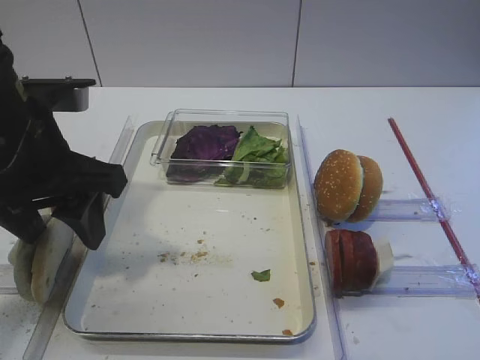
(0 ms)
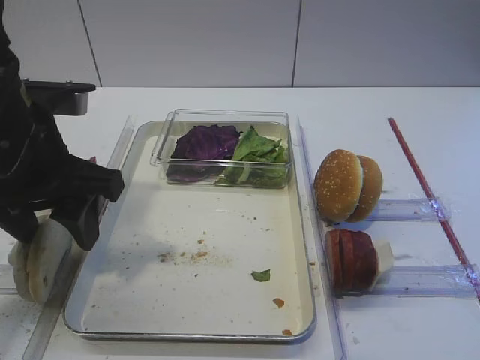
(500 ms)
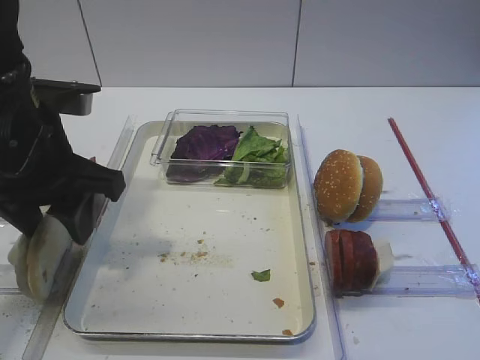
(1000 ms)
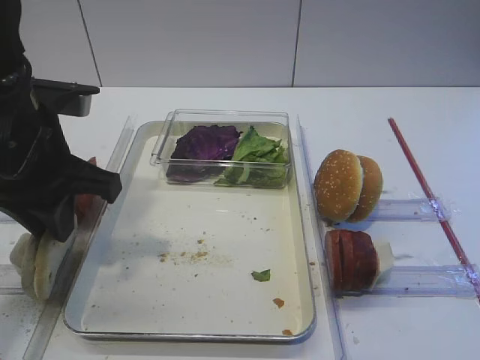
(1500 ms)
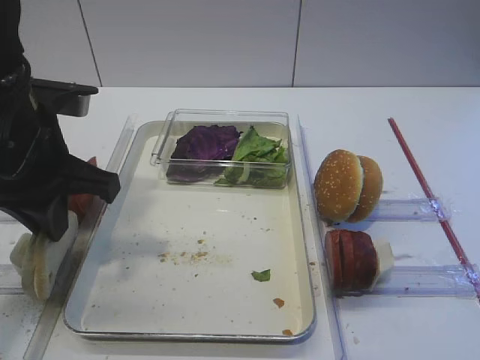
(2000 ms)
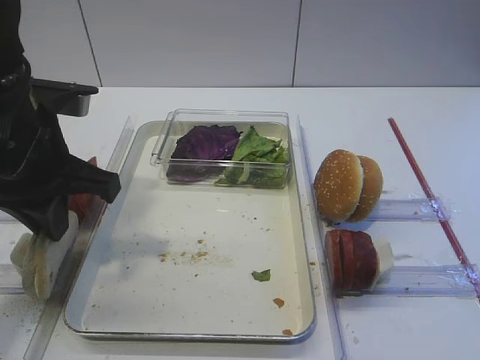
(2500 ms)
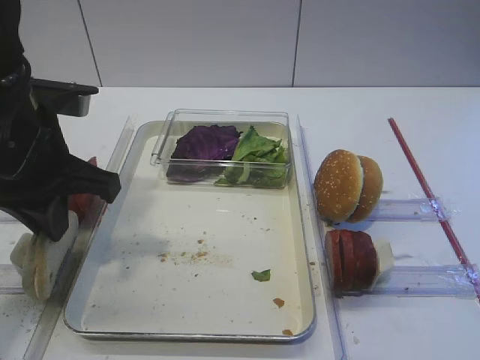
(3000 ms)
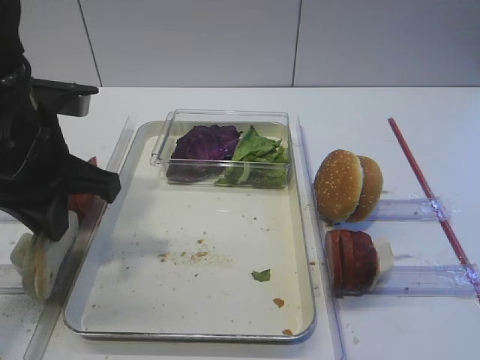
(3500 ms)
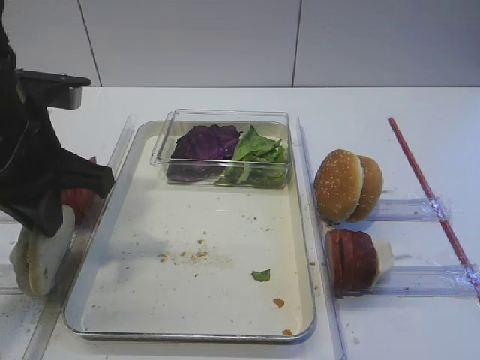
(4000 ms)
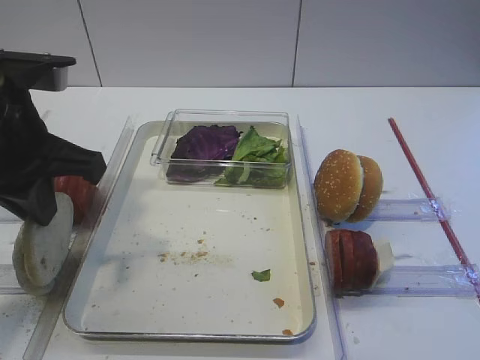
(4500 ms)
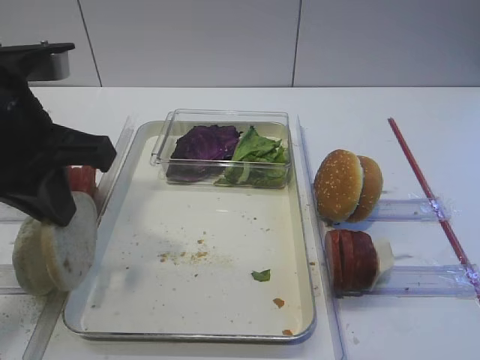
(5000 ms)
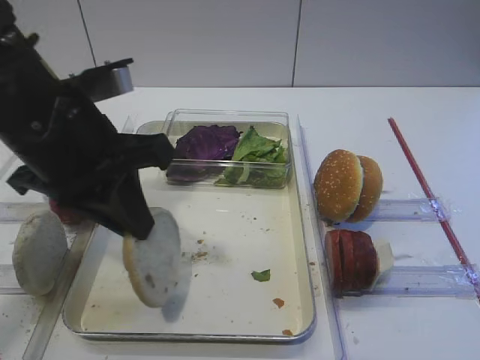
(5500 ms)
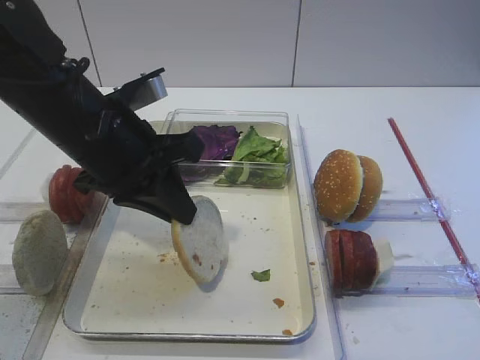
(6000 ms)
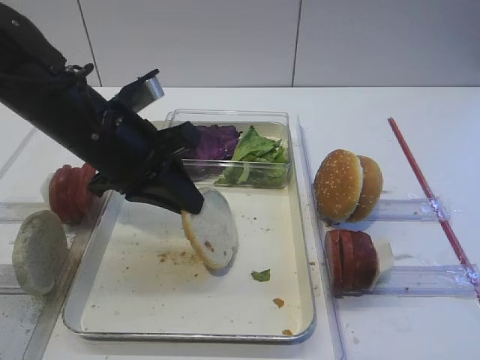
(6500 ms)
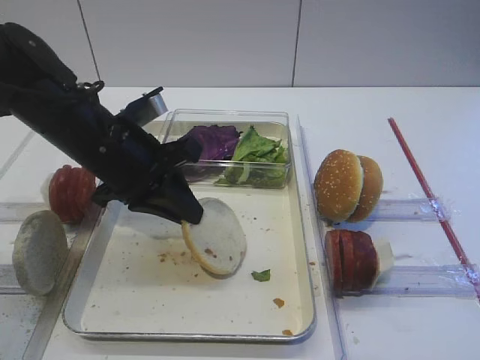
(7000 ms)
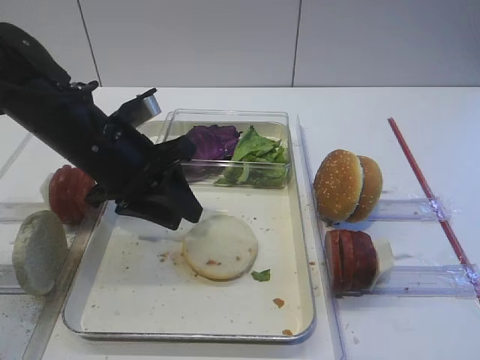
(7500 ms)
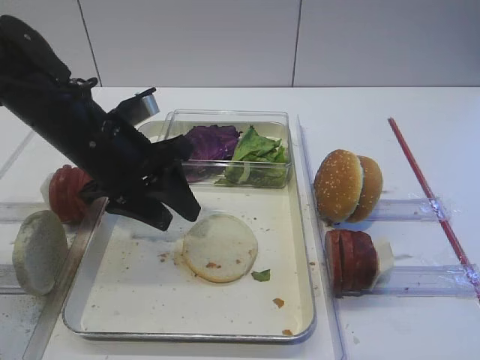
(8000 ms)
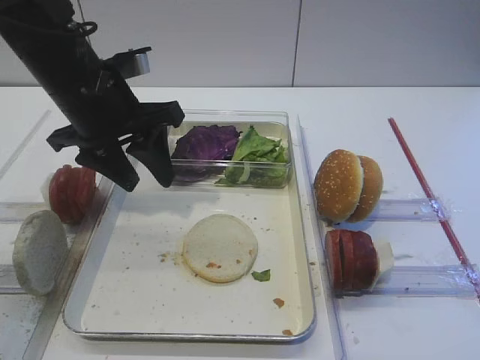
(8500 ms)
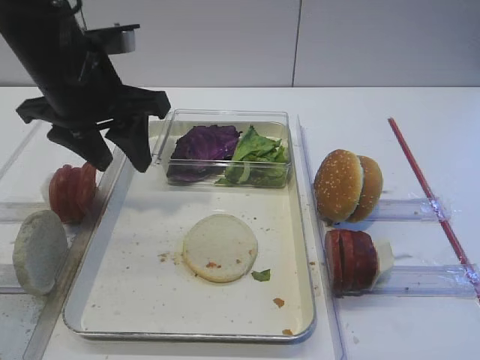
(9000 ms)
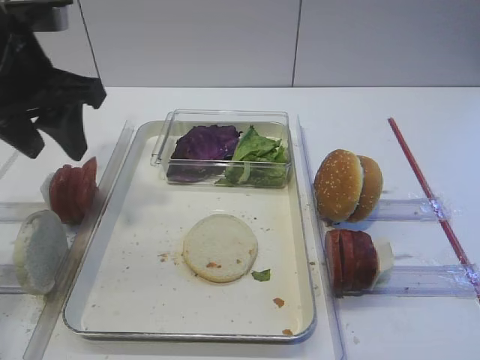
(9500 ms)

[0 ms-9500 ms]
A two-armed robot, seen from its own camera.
Step, 0 ms to 4500 ms: Pick up the bread slice with the left gripper.
Step, 5500 ms to 7500 ms: Place the bread slice on the tray with the left gripper.
0 ms to 2000 ms: The left gripper closes.
2000 ms to 4000 ms: Neither gripper changes place.
5500 ms to 7500 ms: The left gripper goes about 10 cm downward and forward.
7500 ms to 9500 ms: The left gripper goes some 10 cm upward and to the left.

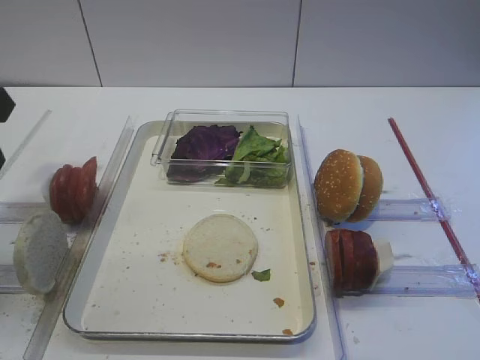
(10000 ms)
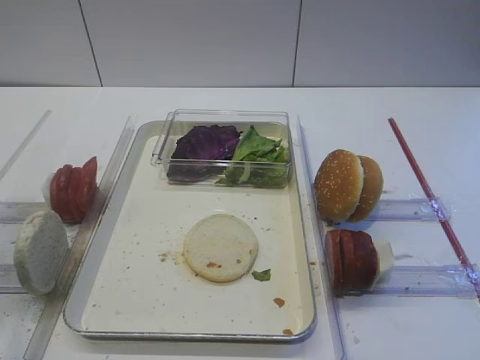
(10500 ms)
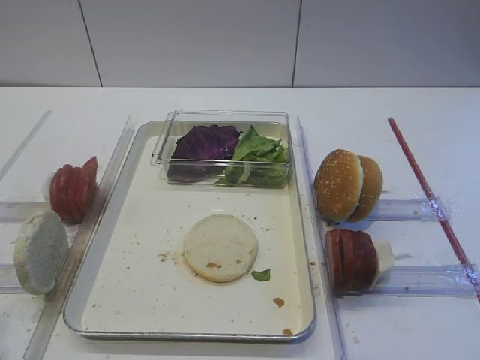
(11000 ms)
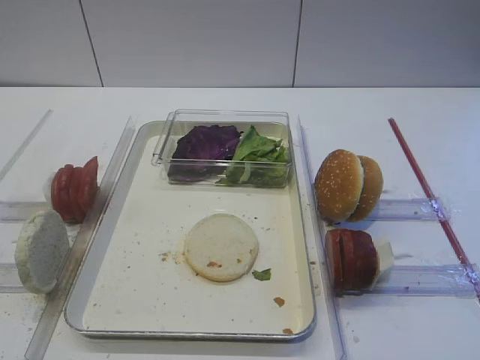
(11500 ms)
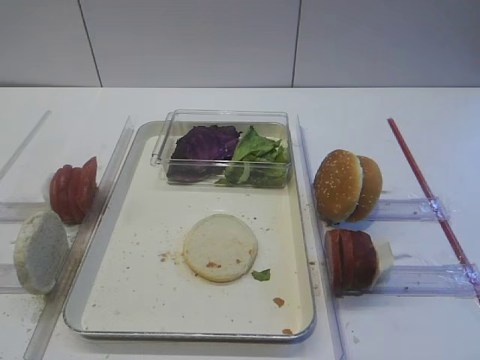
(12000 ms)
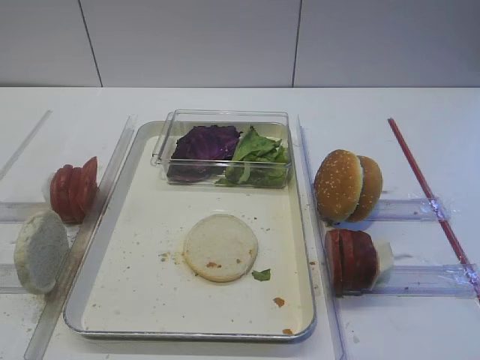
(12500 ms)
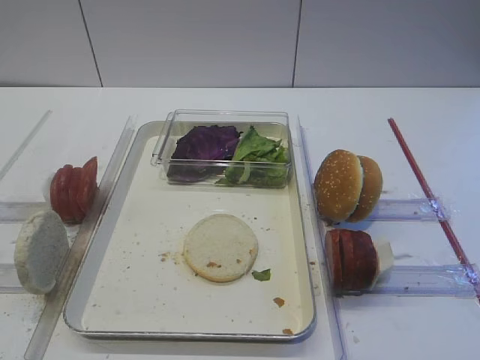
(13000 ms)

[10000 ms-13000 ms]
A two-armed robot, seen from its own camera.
10000 ms to 11500 ms: The left gripper heads backward, covering some 25 cm.

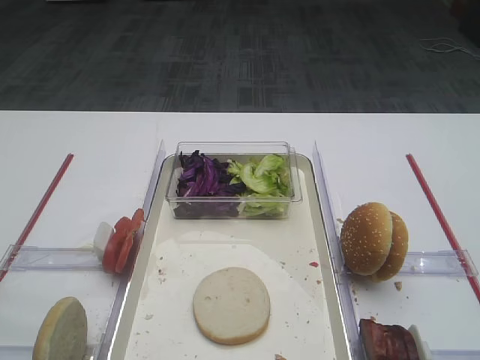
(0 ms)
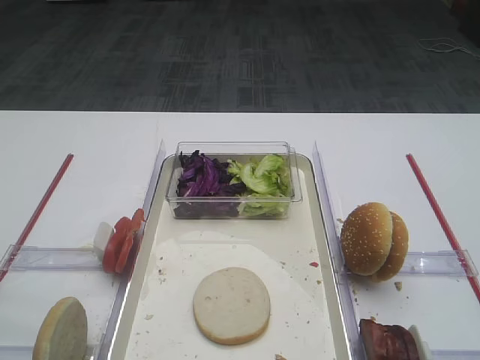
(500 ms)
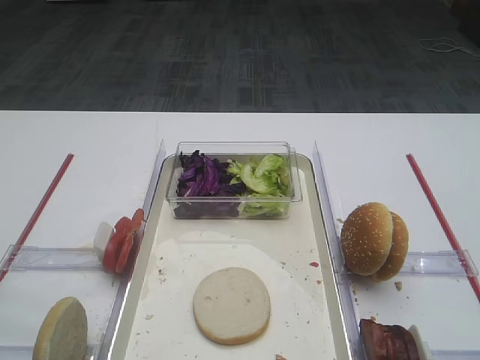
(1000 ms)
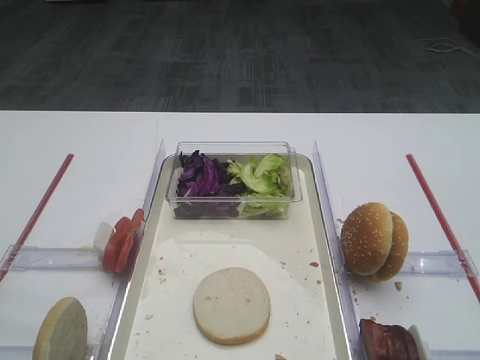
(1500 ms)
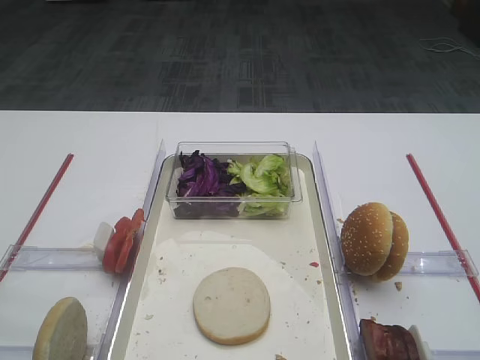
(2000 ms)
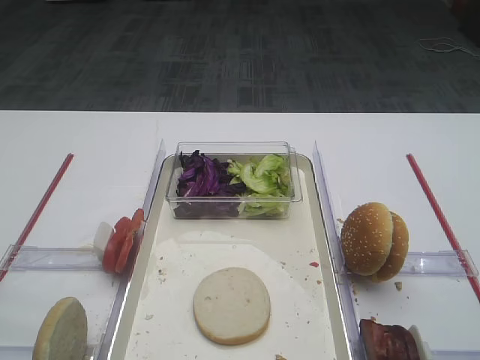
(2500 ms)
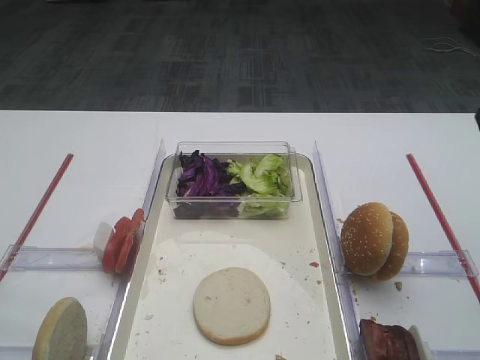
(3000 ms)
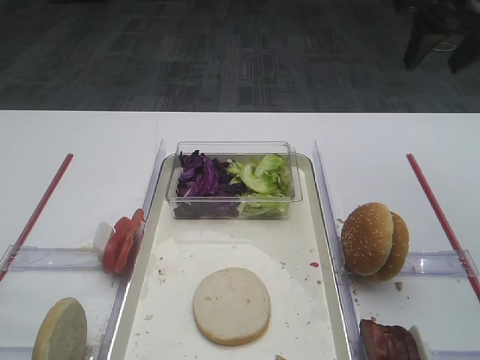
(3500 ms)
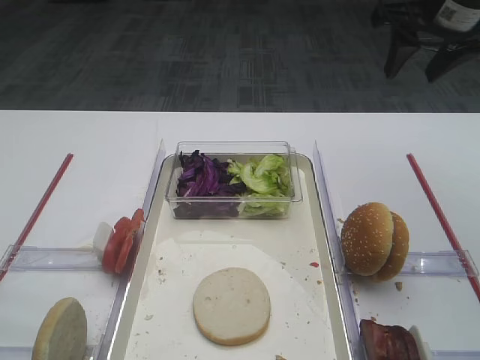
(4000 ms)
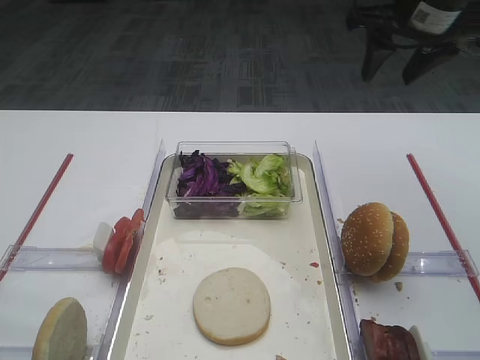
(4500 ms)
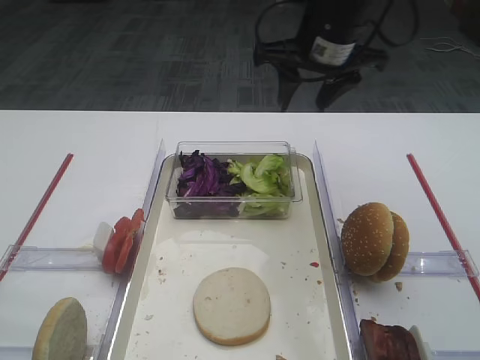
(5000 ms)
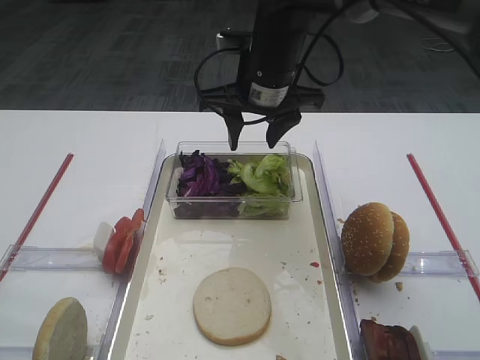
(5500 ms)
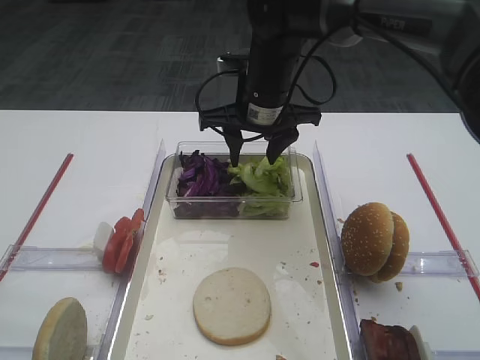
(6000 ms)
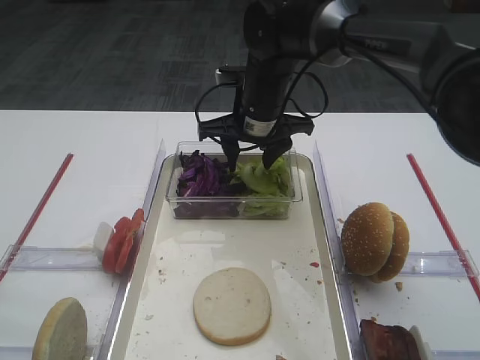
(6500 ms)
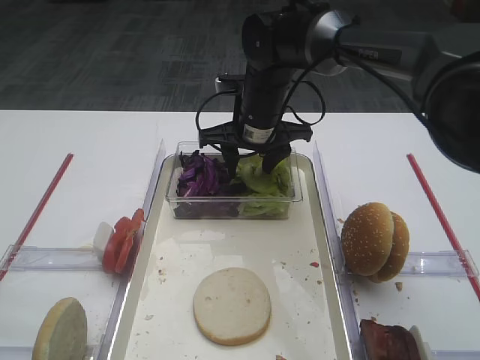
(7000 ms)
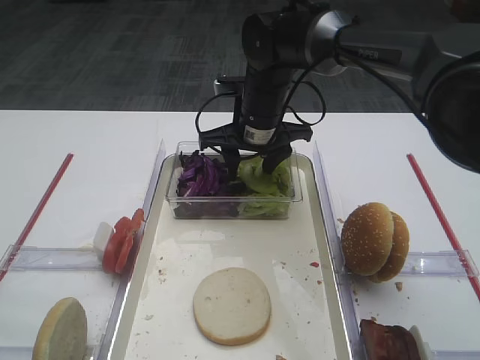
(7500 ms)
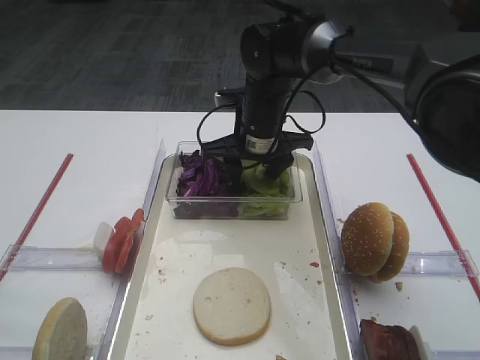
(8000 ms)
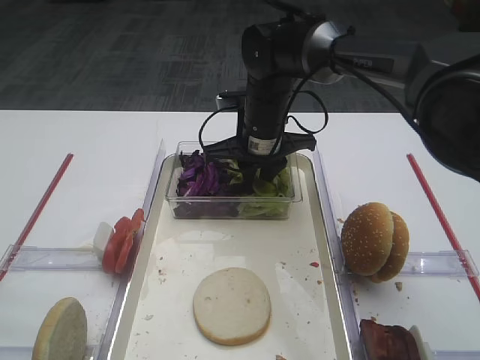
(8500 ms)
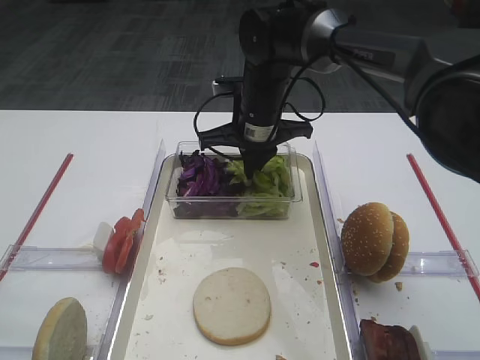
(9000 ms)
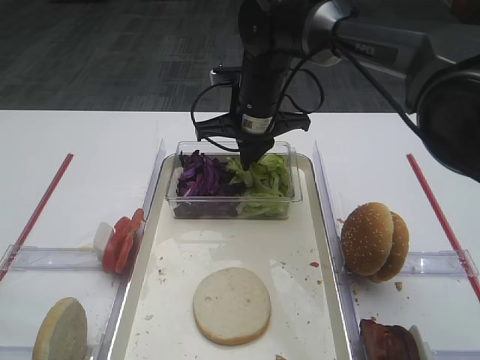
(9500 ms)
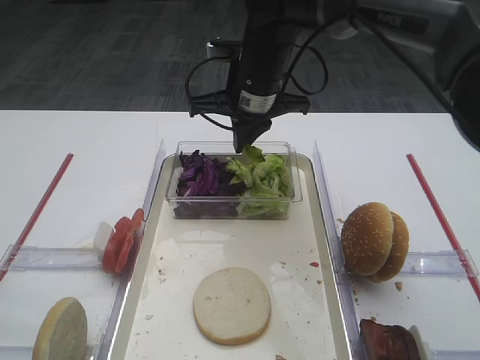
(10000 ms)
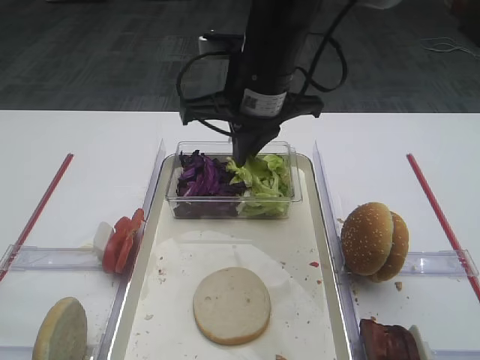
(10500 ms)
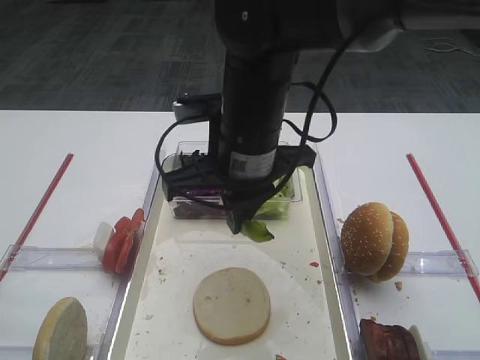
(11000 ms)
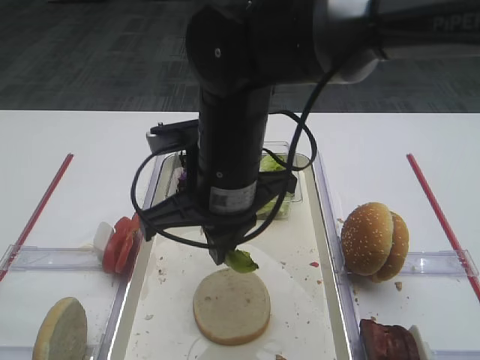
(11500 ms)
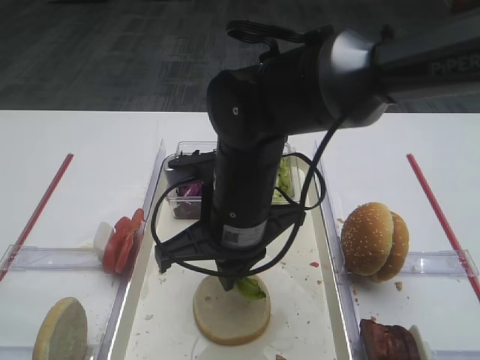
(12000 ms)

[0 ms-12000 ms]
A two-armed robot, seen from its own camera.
Step, 0 ms to 10000 ms: Pick up the lettuce leaf with the right gripper.
2000 ms to 4000 ms: The right gripper heads forward, covering approximately 40 cm.
4000 ms to 6000 ms: The right gripper shifts some 25 cm to the left and downward.
6000 ms to 8000 ms: The right gripper is displaced downward by some 5 cm.
8000 ms to 10000 ms: The right gripper heads upward, covering approximately 5 cm, and closes.
10000 ms to 12000 ms: The right gripper shifts roughly 15 cm backward.

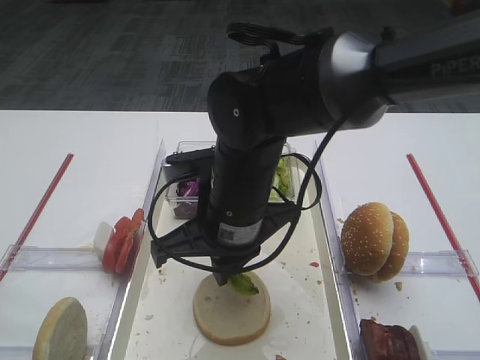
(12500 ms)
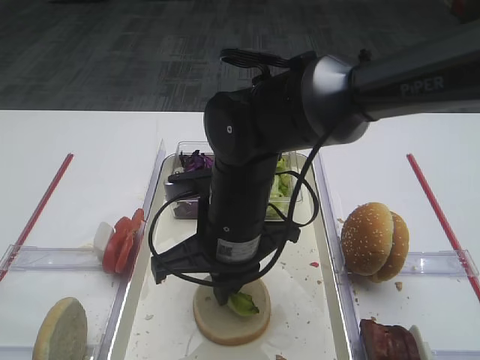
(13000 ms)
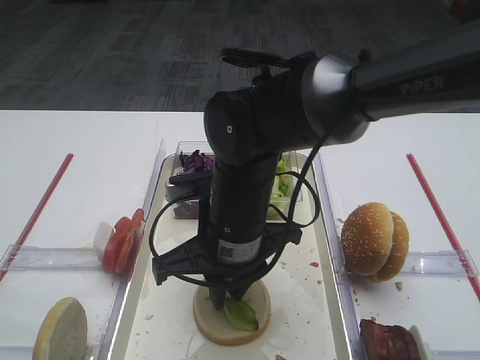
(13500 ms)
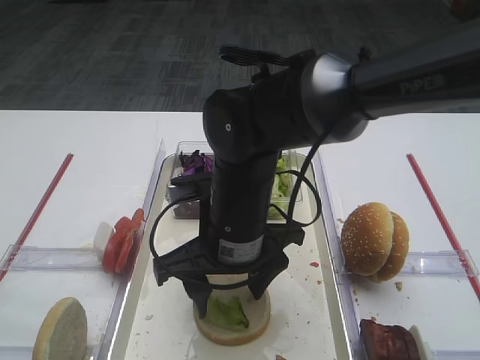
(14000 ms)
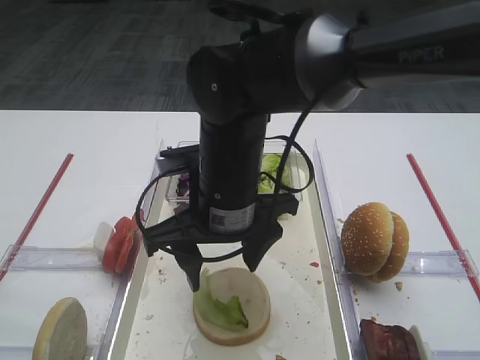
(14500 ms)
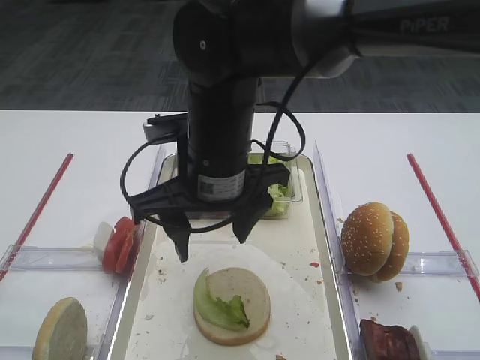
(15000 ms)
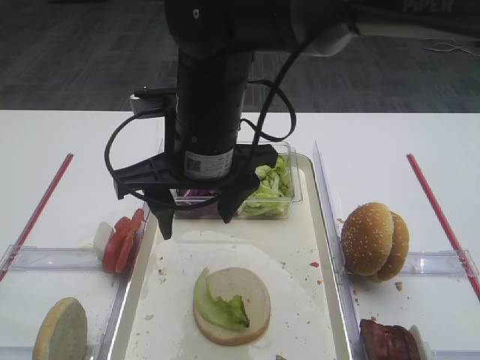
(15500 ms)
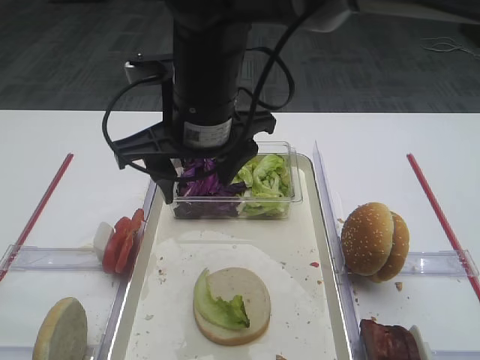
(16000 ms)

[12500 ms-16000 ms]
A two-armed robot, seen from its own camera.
Step, 12500 ms to 14500 ms: Place the lettuce leaf on the bread slice with the right gripper.
12500 ms to 14500 ms: The right gripper opens.
14500 ms to 16000 ms: The right gripper is displaced upward by roughly 10 cm.
